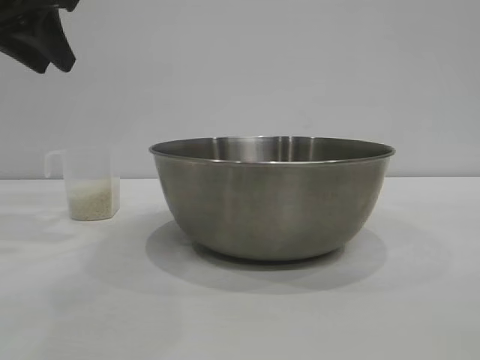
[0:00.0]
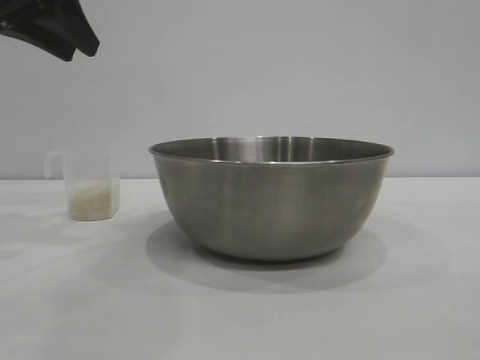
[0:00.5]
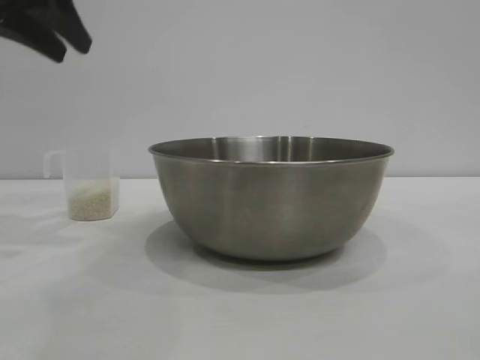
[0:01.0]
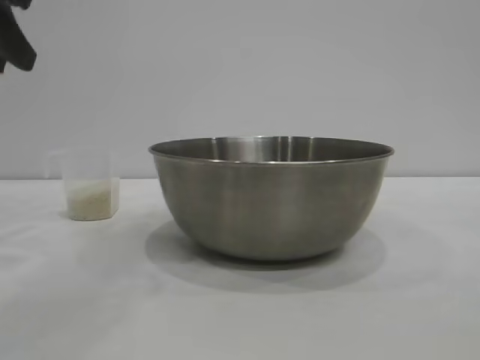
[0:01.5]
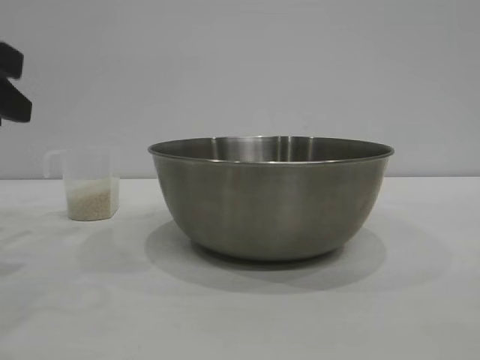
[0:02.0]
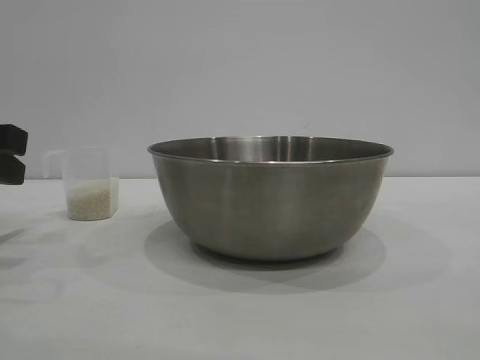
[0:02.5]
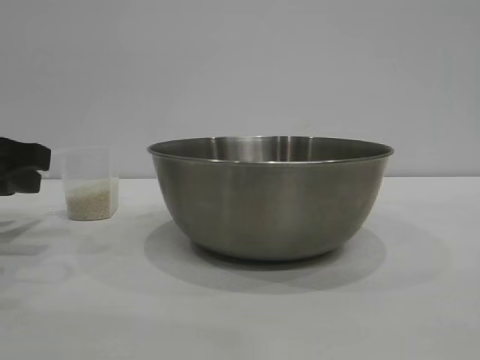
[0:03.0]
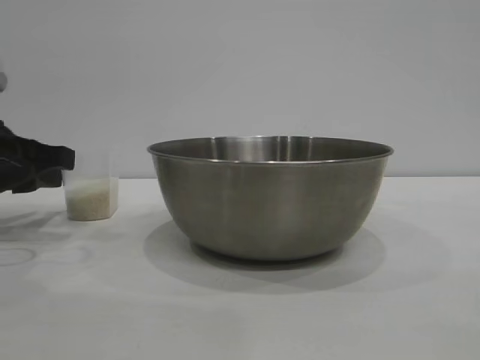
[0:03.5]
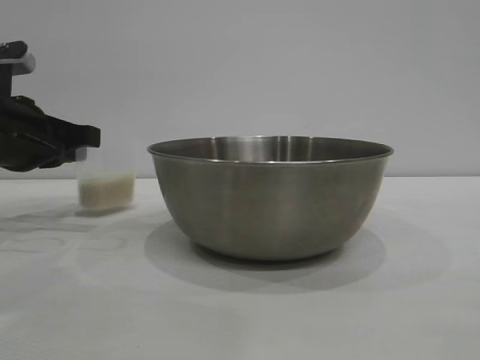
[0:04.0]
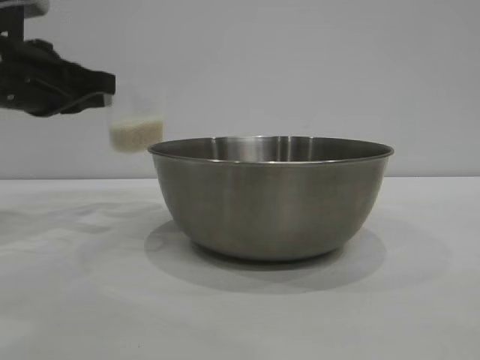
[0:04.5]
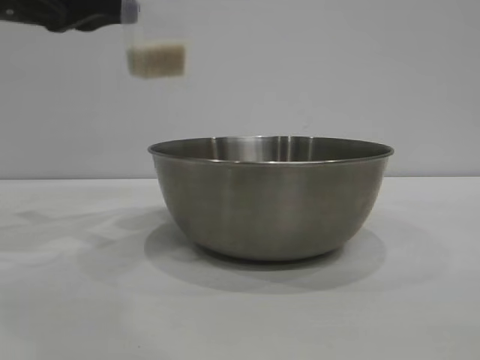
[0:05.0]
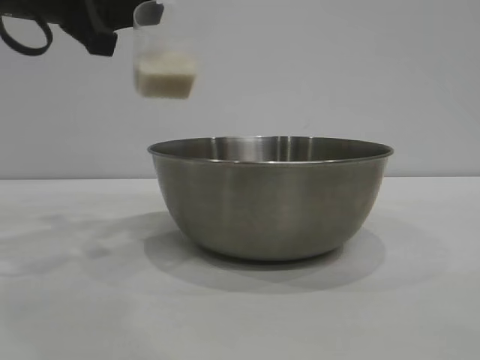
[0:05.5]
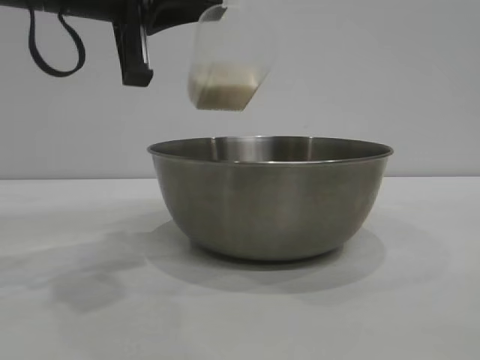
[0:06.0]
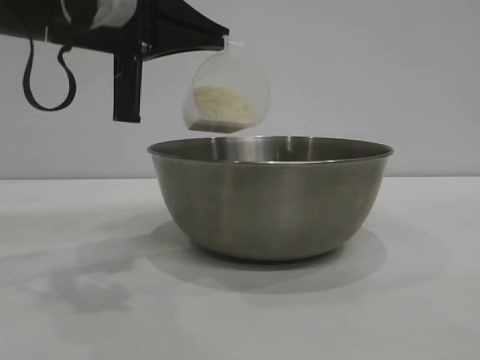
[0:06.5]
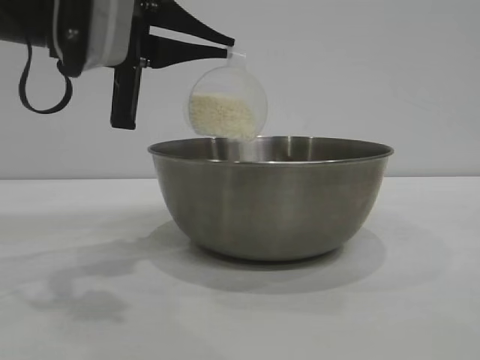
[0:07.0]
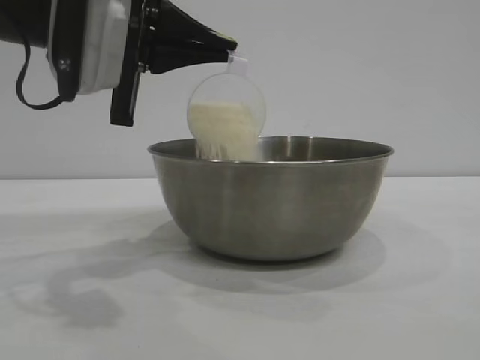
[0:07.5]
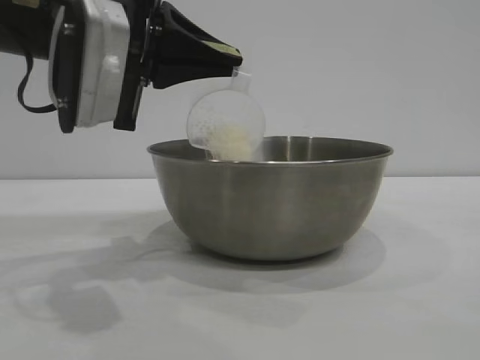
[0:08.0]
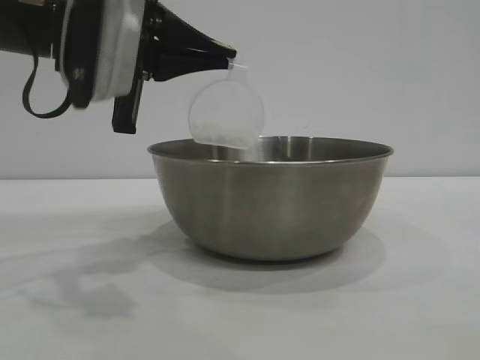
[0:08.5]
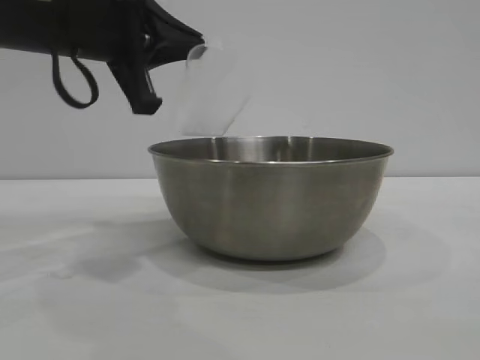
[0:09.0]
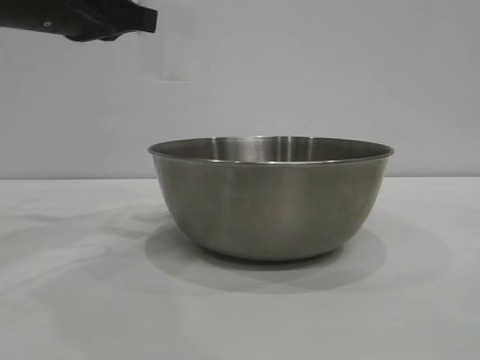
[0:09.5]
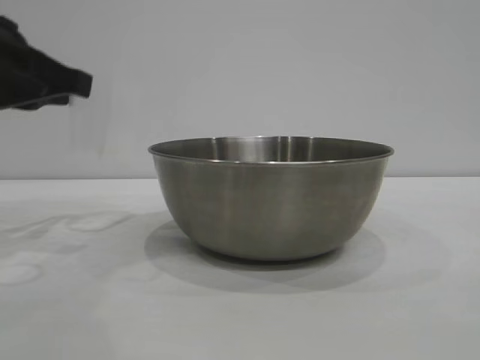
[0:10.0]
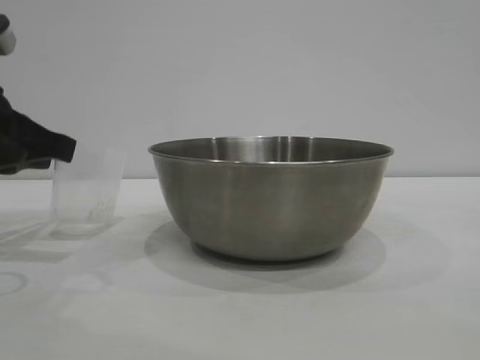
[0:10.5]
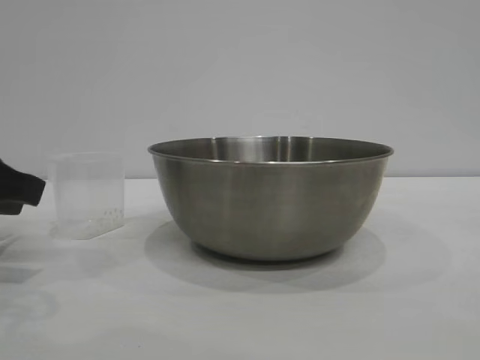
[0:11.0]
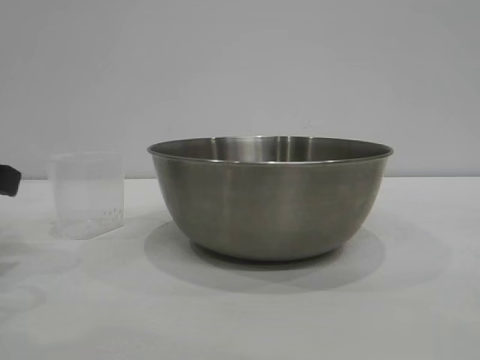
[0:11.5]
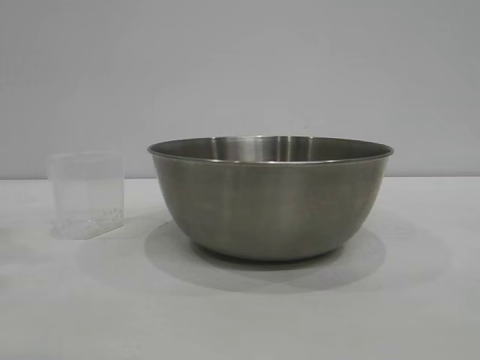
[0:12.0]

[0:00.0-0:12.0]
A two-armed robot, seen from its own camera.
Task of the whole recording: the right gripper grasp the rice container and place it in the center of the table, the left gripper grasp the rice scoop and pour the rice into the rice container.
Step, 0:00.0 to 0:04.0: Pick up the cup with rice in it with the left gripper.
Step, 0:04.5 to 0:09.0: Pour the rice from the cup into the bowl with the left gripper.
Step, 0:09.5 to 0:11.0: Place the cup on the table with the left gripper.
